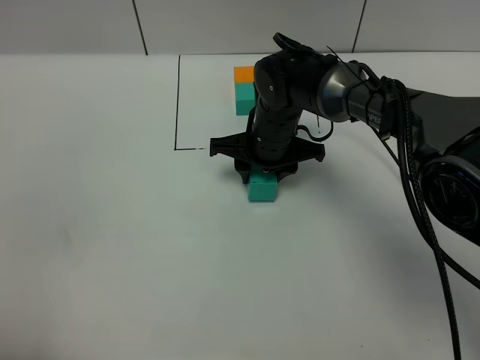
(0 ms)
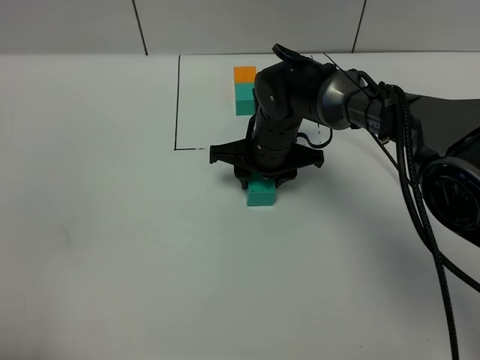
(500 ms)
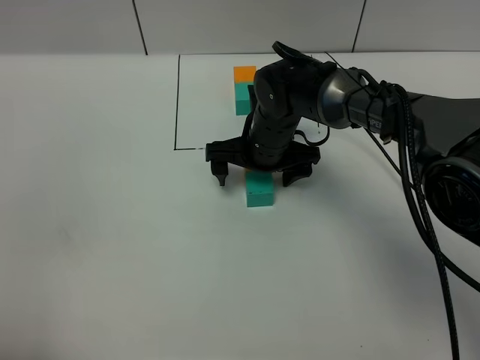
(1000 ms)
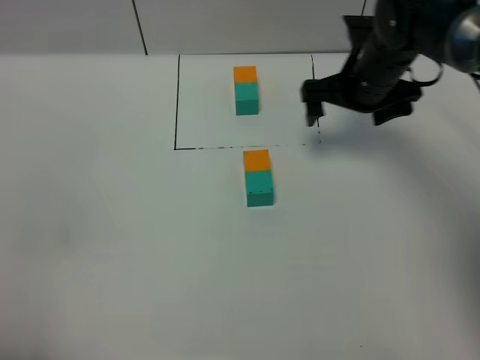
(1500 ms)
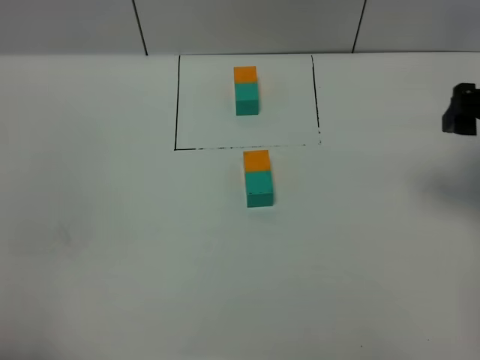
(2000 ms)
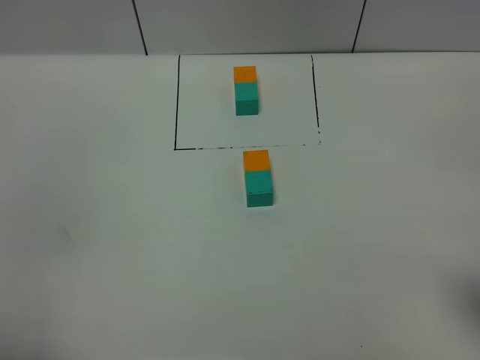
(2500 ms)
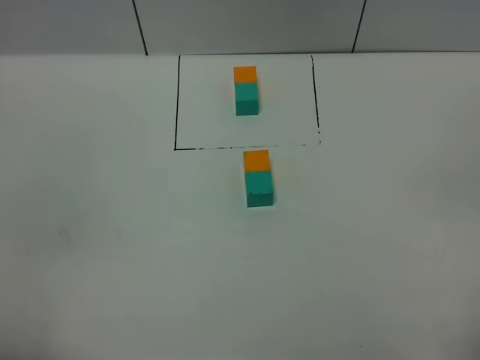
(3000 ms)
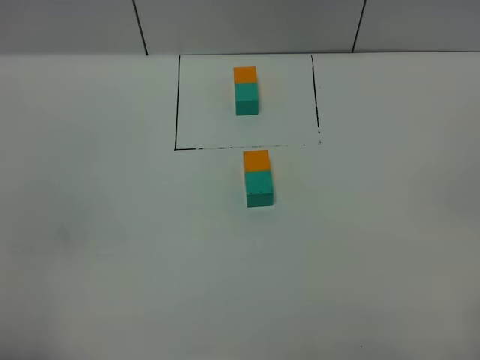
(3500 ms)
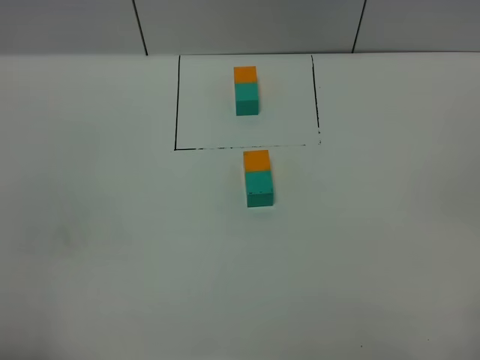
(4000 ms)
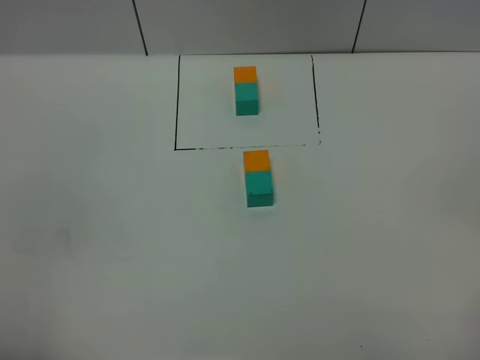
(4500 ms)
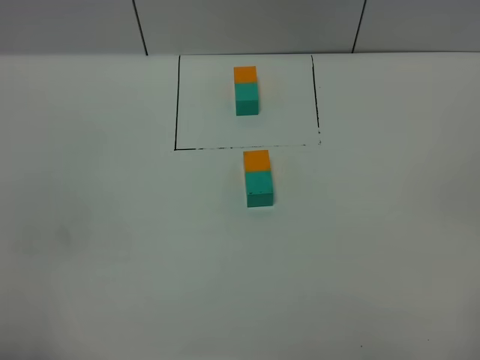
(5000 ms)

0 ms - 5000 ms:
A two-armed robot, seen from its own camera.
Task of the whole recording: According to the building block template in front, assemble the scattered blocks together.
0 ms - 2500 ms: The right gripper heads backward, to the right and upward, covering approximately 40 cm, and opens up.

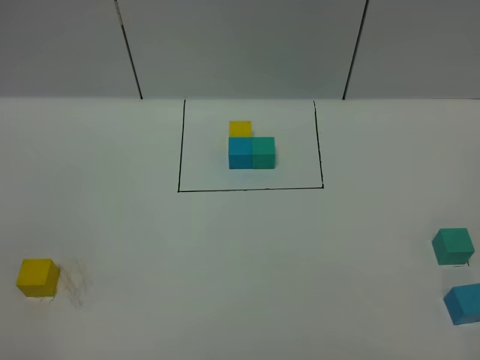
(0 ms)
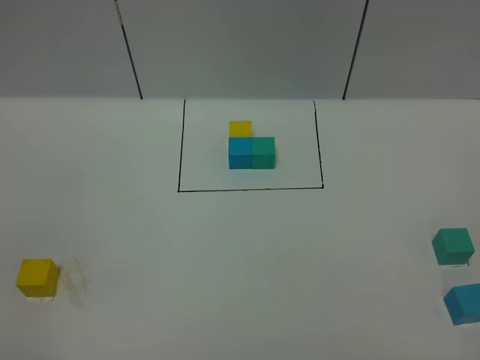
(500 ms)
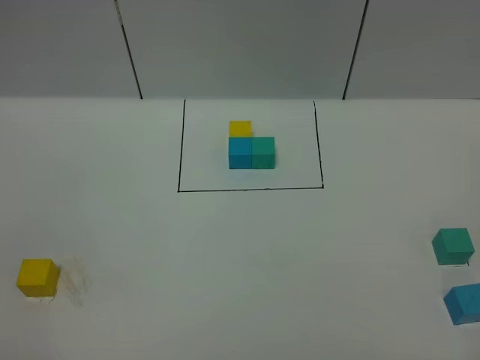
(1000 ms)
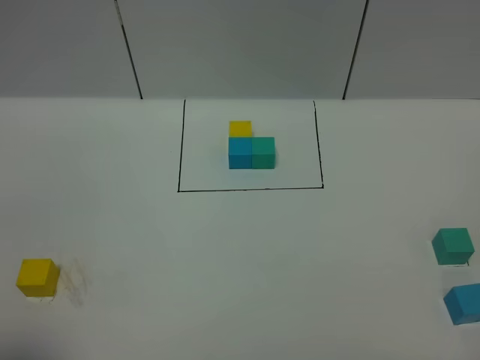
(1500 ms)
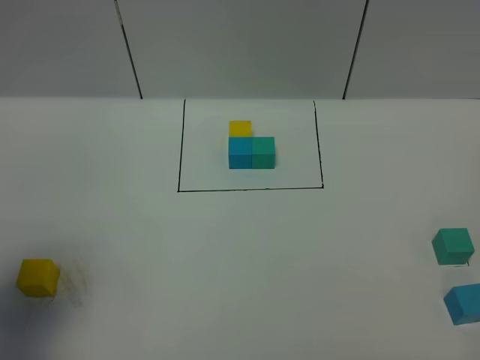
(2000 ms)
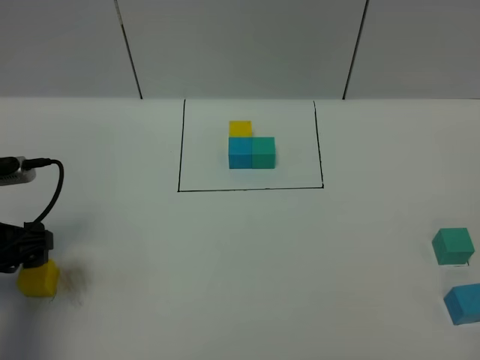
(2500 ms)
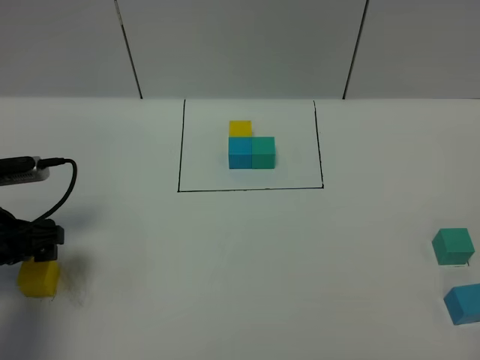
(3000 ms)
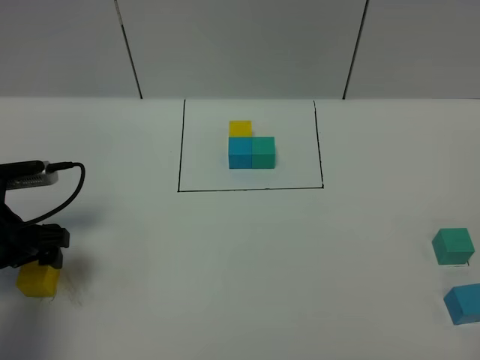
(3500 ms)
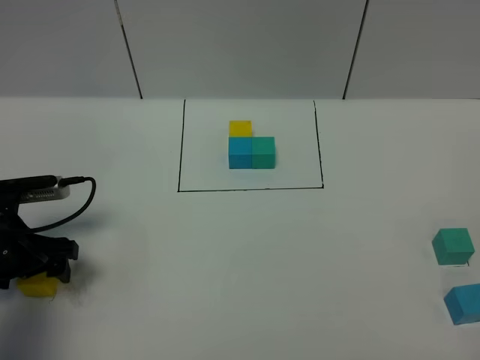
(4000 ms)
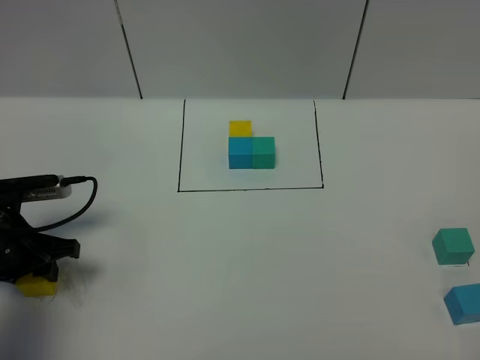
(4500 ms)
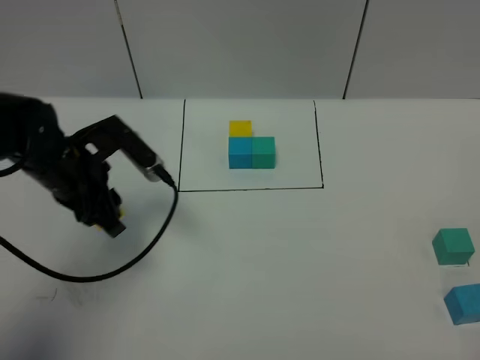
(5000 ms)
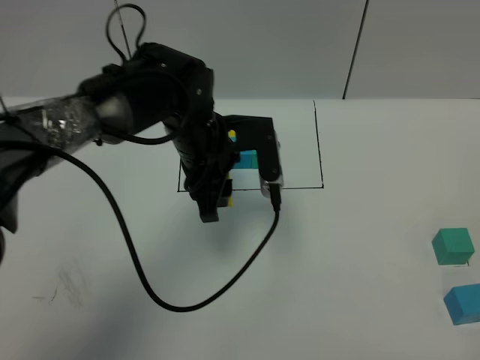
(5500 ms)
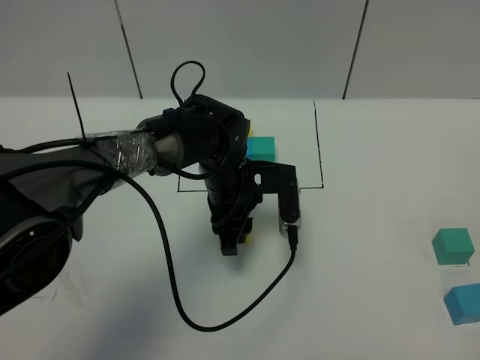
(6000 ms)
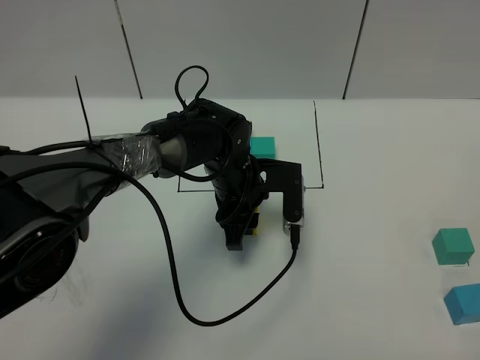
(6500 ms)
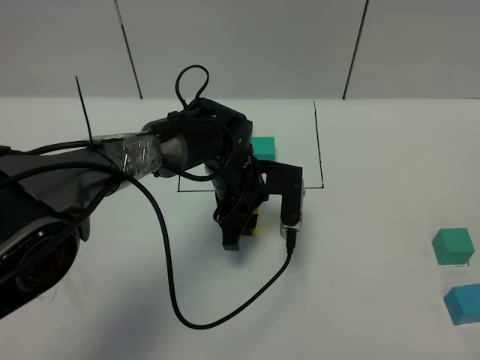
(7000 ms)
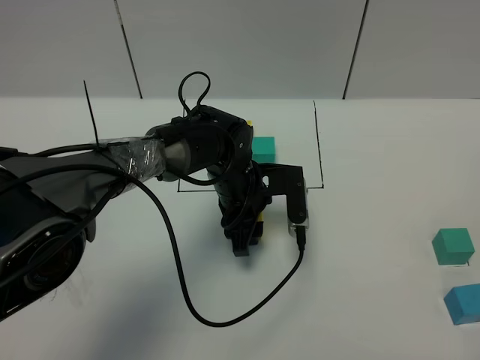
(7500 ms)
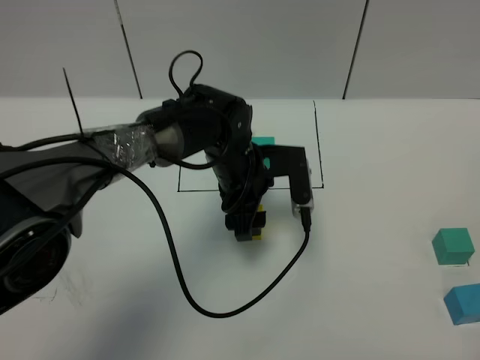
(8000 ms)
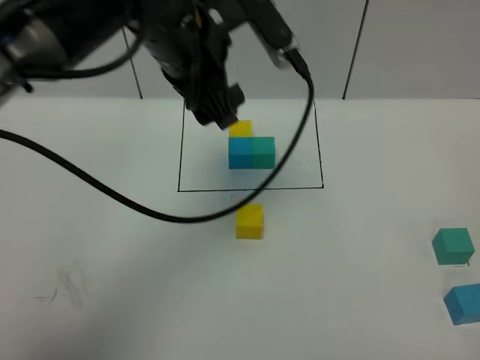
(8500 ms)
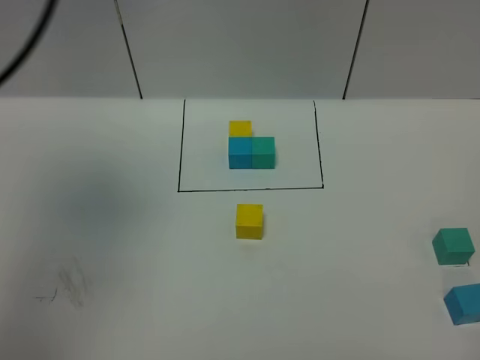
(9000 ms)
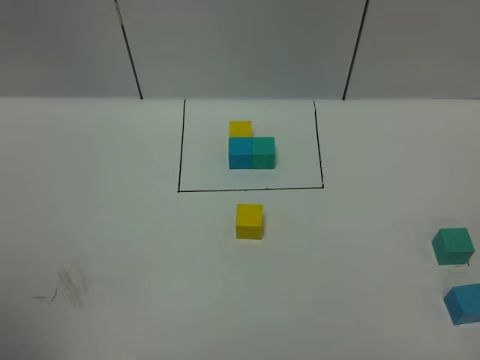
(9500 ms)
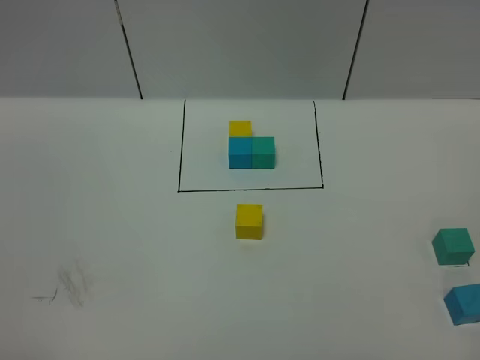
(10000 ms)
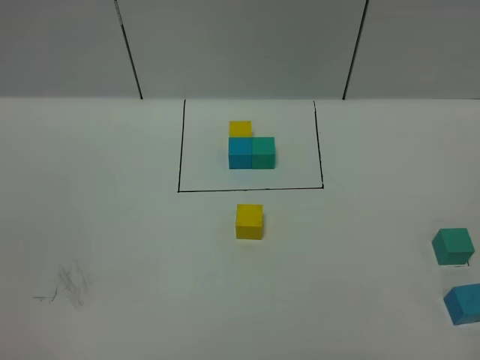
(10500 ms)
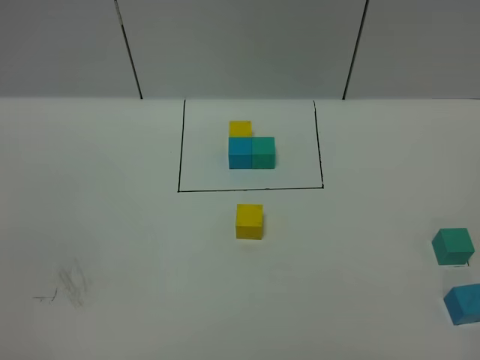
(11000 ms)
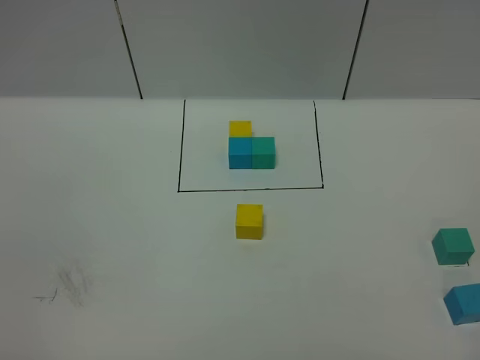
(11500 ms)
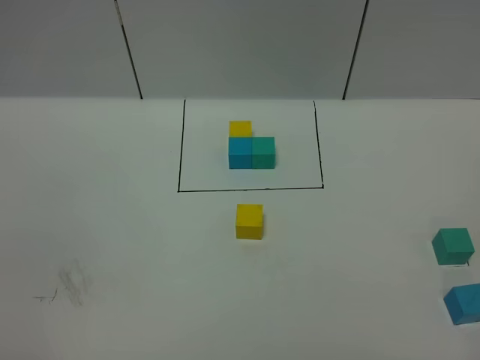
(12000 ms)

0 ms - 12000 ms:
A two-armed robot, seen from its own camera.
Task of the whole recording: According to the building block template in front, assemble the scattered blocks together.
Step, 2500 ms - 8000 ms: Put the yellow cube in the center of the table.
0 ms - 2000 ms: The left gripper shifts roughly 20 cm forward, and opens.
2000 ms - 4000 ms: The left gripper moves downward and forward, approximately 15 cm.
4000 ms - 6000 ms: The left gripper travels to the right by about 30 cm, and closes up.
6000 ms - 8000 ms: The left gripper opens its fingers.
8000 ms - 10000 ms: The left gripper shifts about 60 cm backward, to the left and upward.

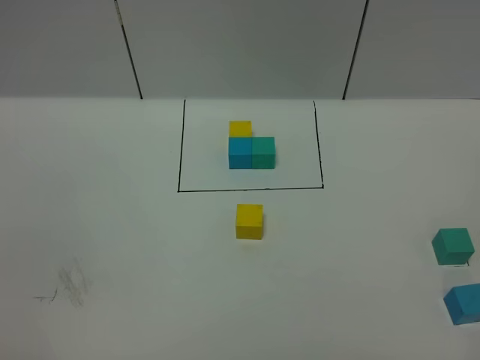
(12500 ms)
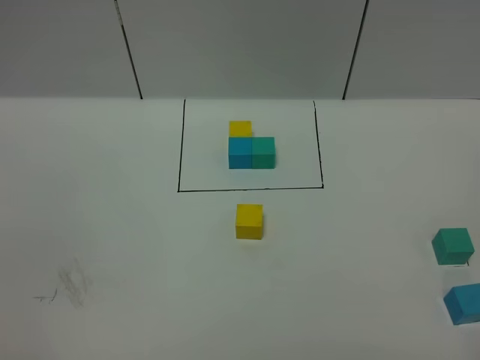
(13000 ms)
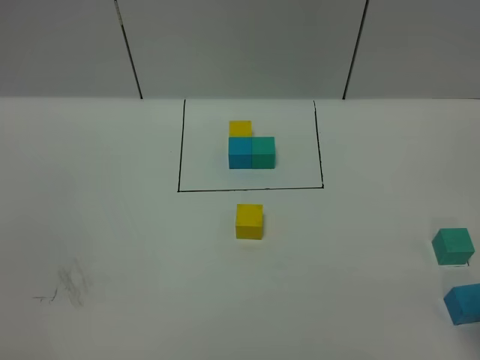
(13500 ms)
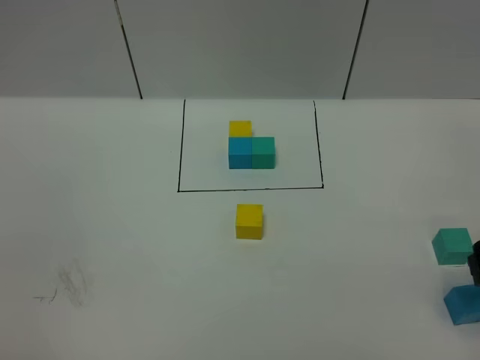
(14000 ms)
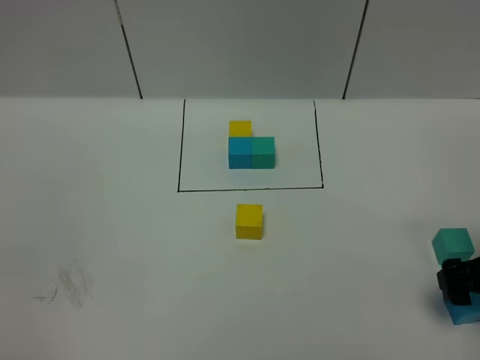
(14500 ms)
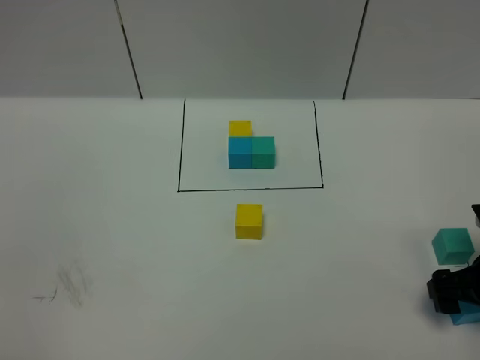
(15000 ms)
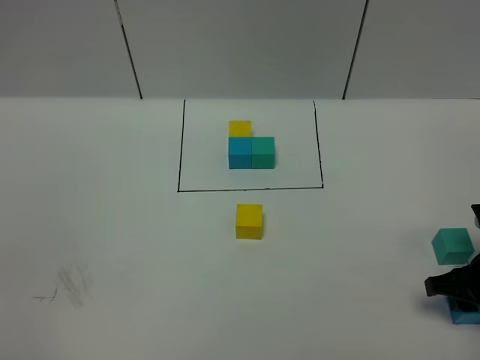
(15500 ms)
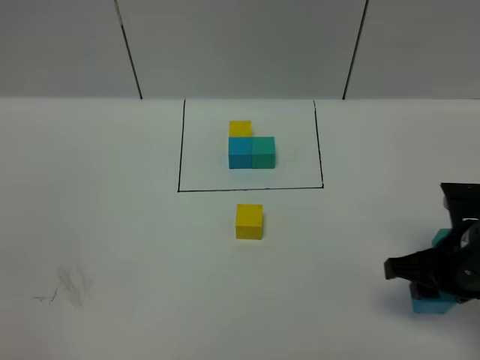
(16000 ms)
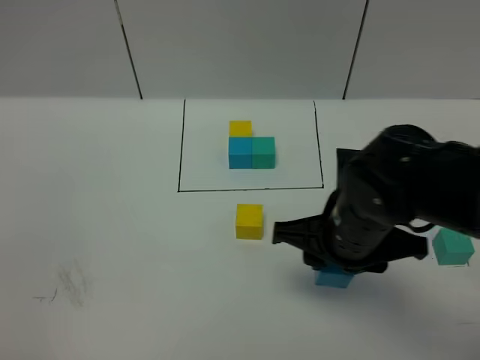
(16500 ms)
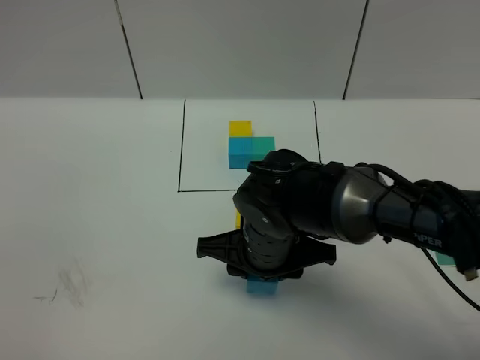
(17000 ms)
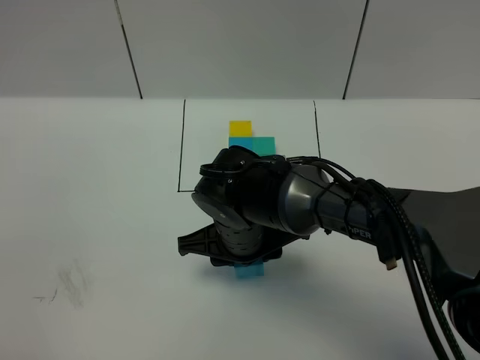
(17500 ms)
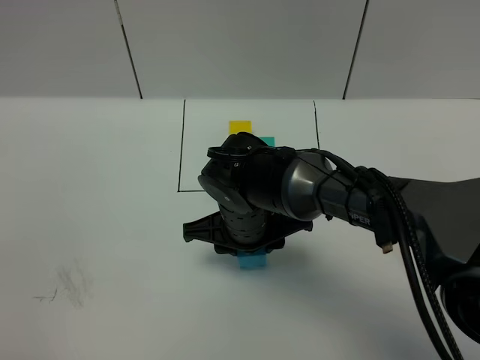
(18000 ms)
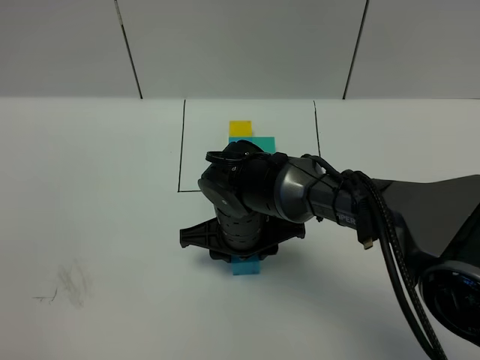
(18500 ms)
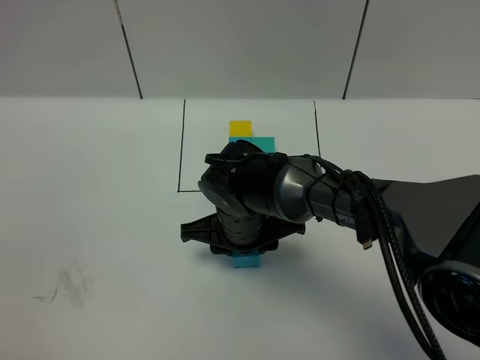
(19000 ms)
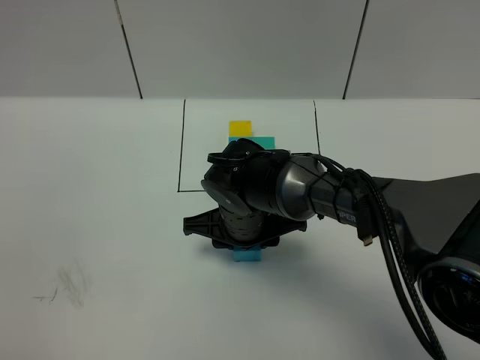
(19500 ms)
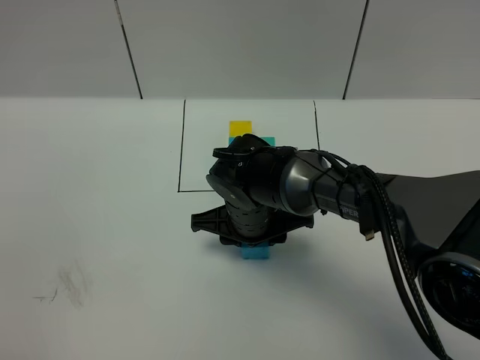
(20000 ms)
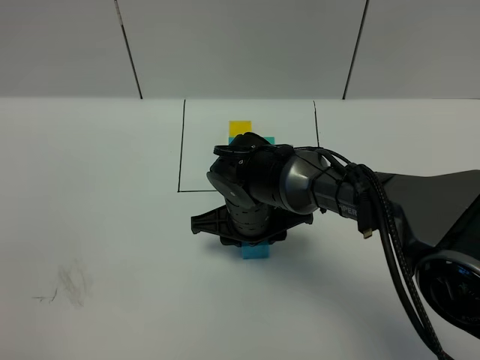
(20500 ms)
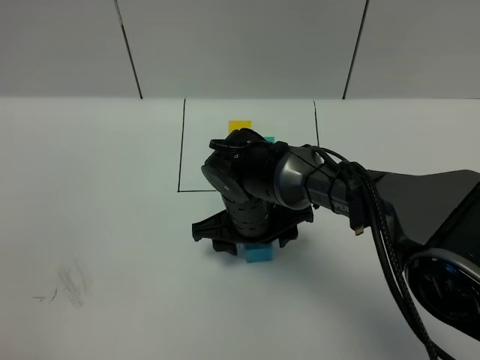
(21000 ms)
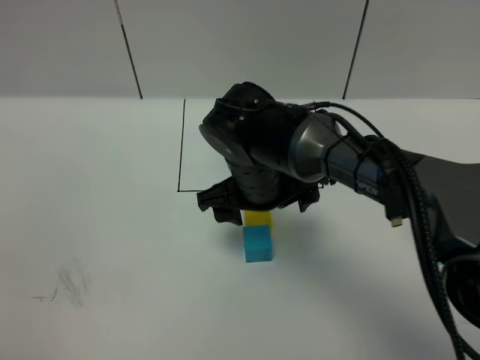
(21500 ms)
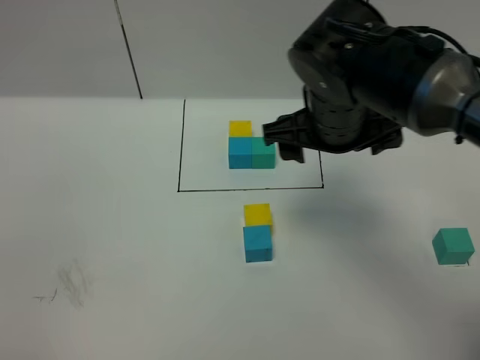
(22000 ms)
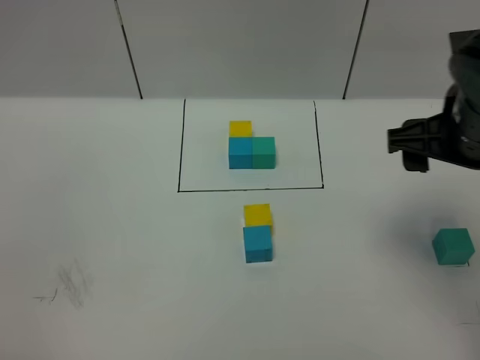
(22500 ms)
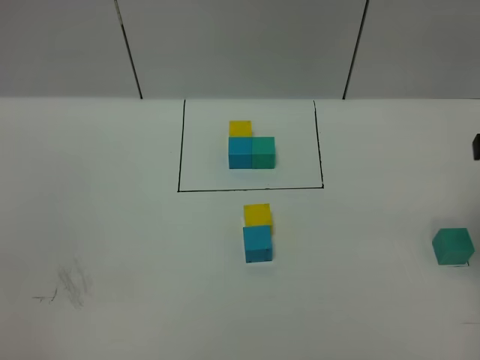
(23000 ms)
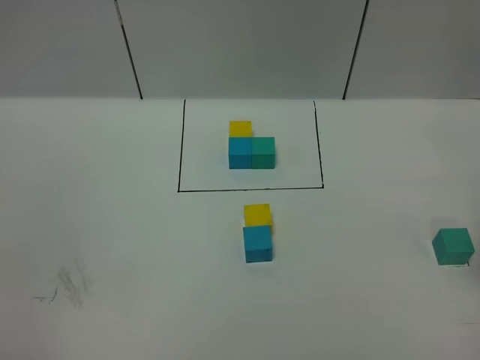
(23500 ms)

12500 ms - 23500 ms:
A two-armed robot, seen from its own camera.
Task of the whole recording: According to the building block template in front, assemble the scattered blocks together.
Step, 12500 ms - 21000 ms: Put the blue cube in the front of the yellow cube.
12500 ms - 14500 ms: The right gripper moves forward and downward, about 25 cm, and opens its fingers.
14500 ms - 16000 ms: The right gripper goes some 5 cm to the left, and closes its fingers.
16000 ms - 18000 ms: The right gripper heads to the left, covering roughly 25 cm.
18000 ms - 20000 ms: The grippers move only a little.
20000 ms - 21500 ms: The right gripper is displaced upward by roughly 10 cm, and opens.
21500 ms - 23500 ms: The right gripper is displaced to the right by about 30 cm.
